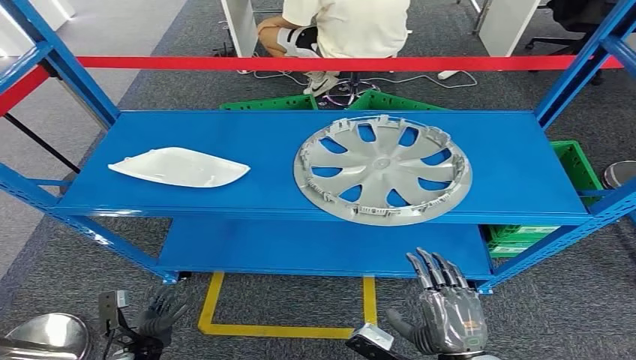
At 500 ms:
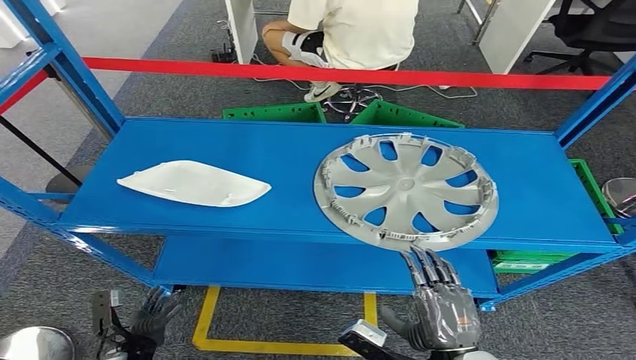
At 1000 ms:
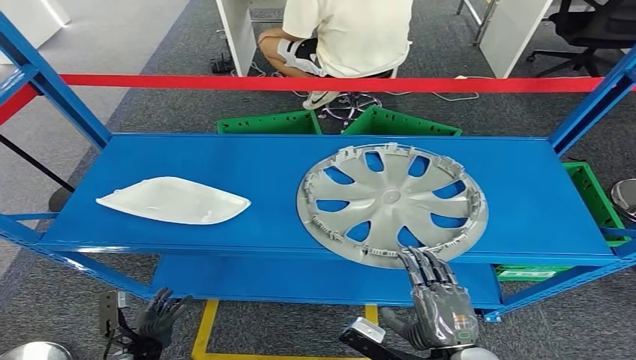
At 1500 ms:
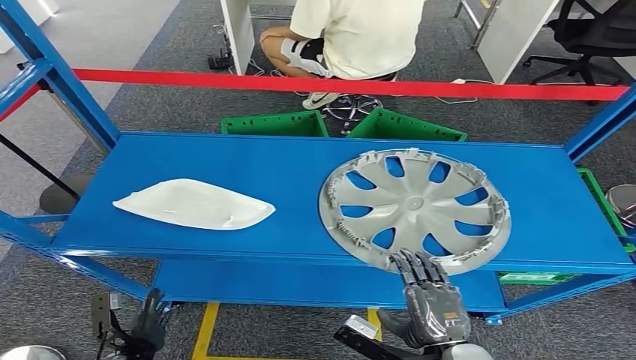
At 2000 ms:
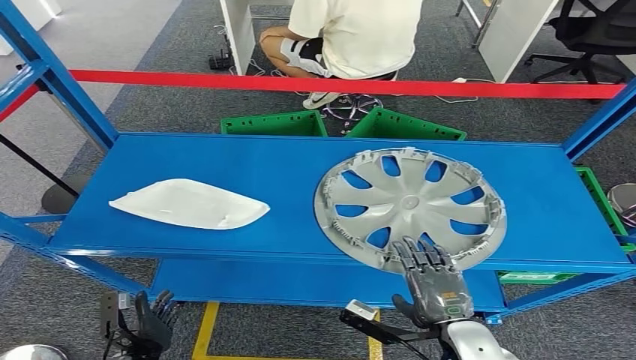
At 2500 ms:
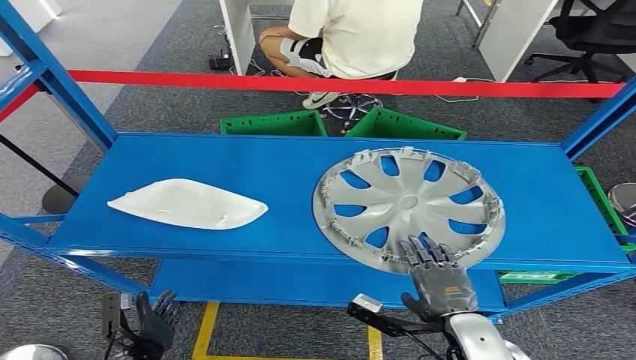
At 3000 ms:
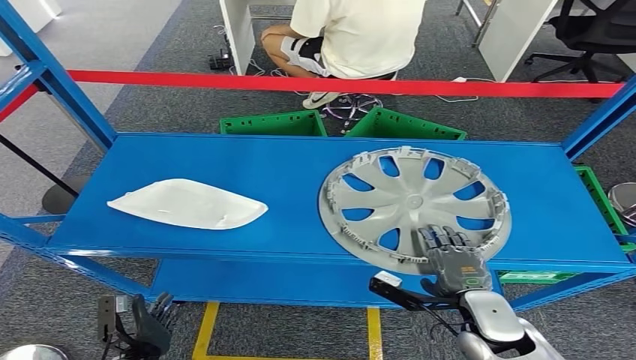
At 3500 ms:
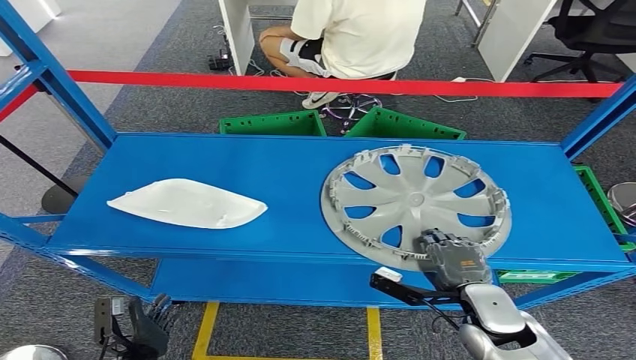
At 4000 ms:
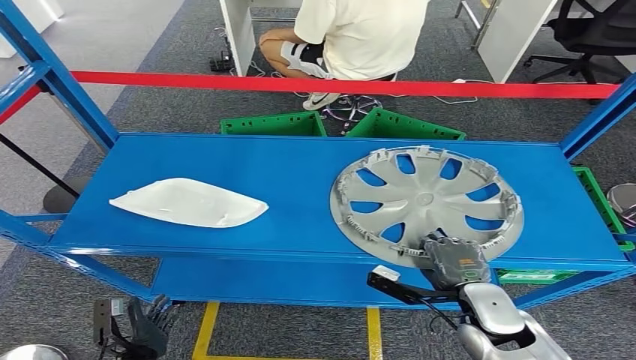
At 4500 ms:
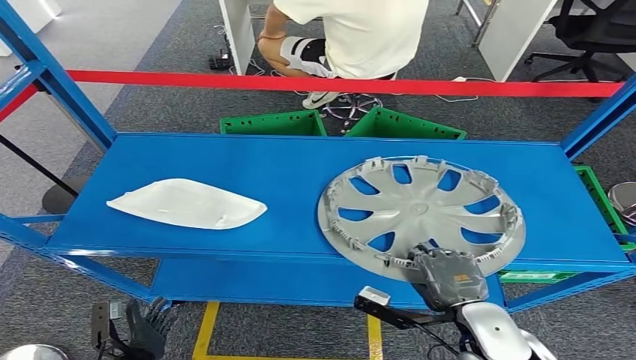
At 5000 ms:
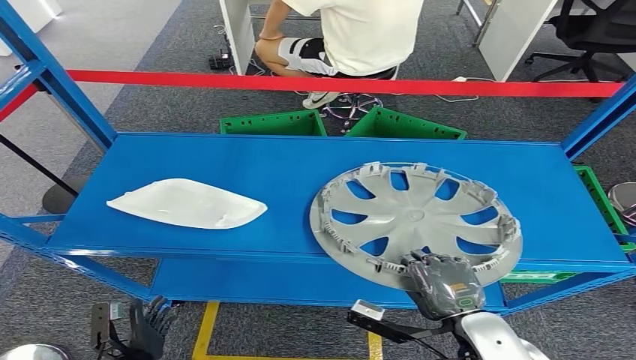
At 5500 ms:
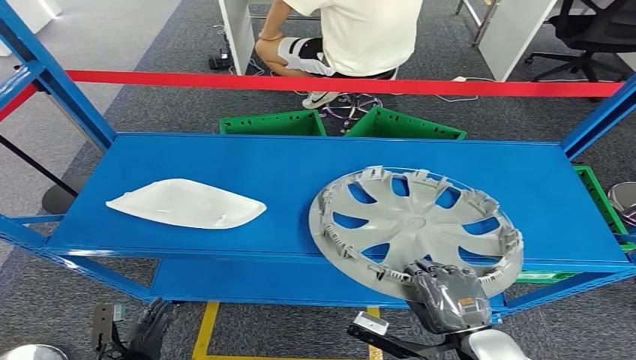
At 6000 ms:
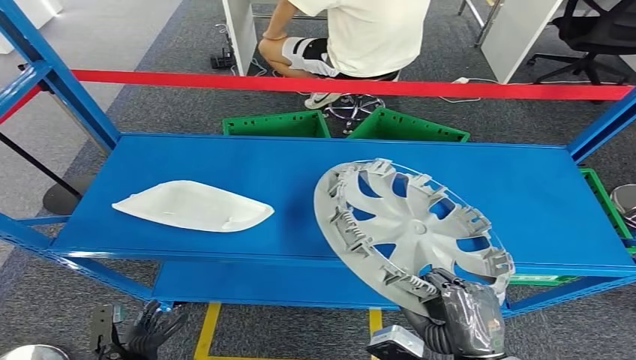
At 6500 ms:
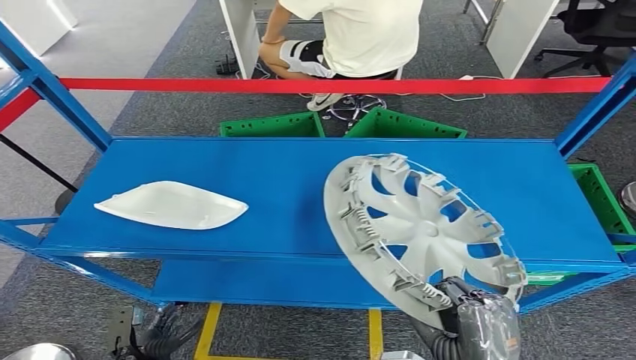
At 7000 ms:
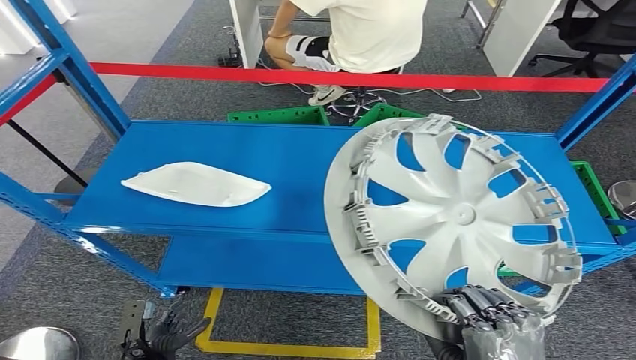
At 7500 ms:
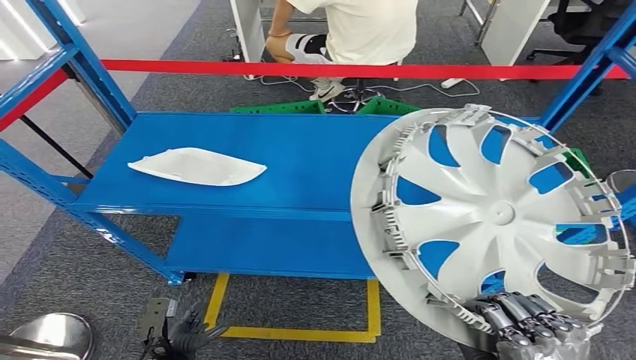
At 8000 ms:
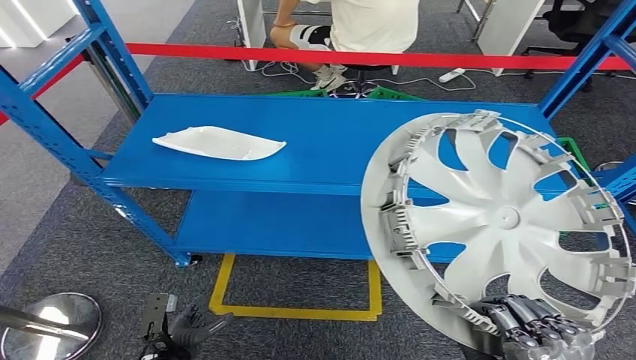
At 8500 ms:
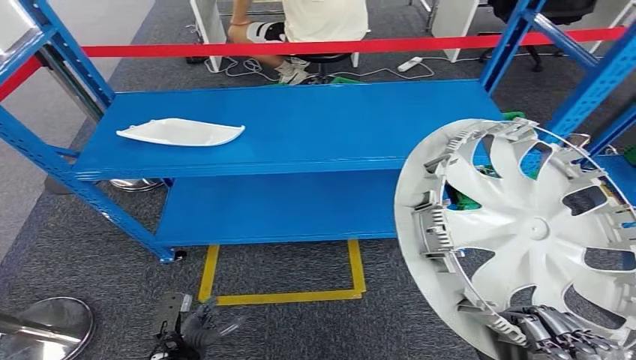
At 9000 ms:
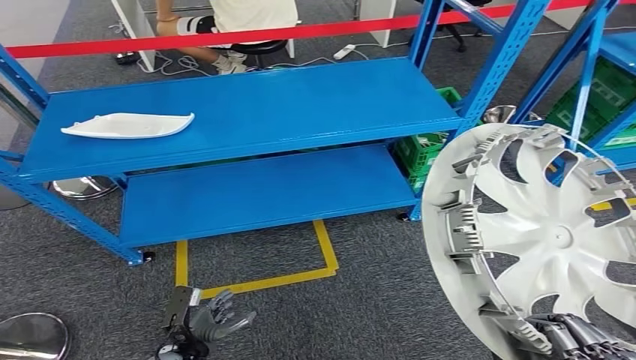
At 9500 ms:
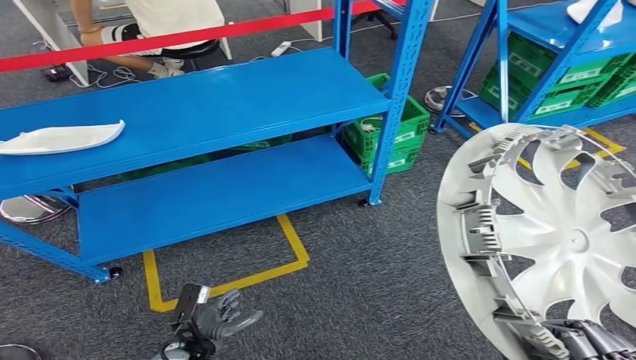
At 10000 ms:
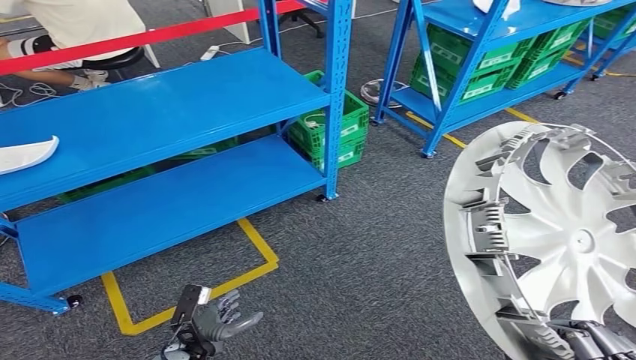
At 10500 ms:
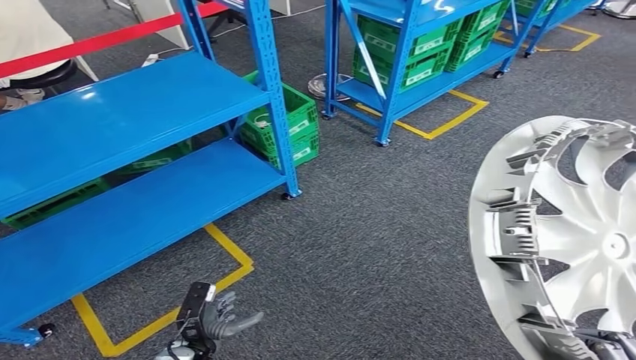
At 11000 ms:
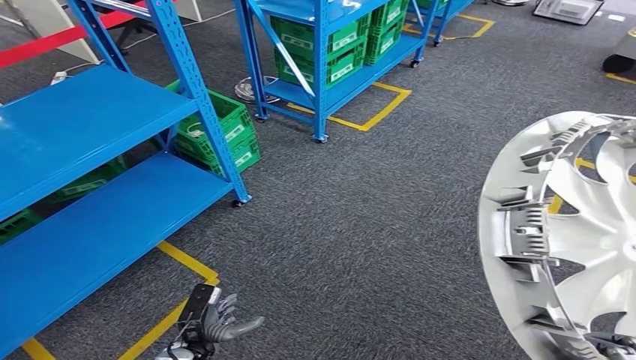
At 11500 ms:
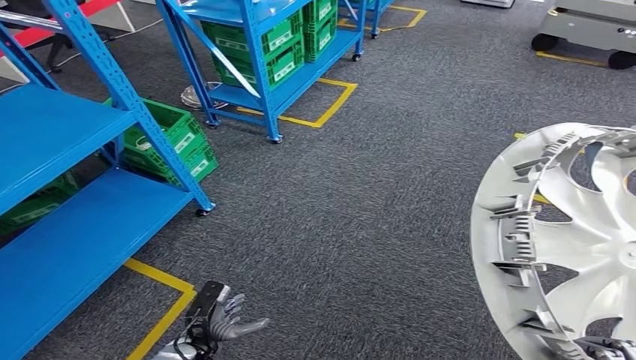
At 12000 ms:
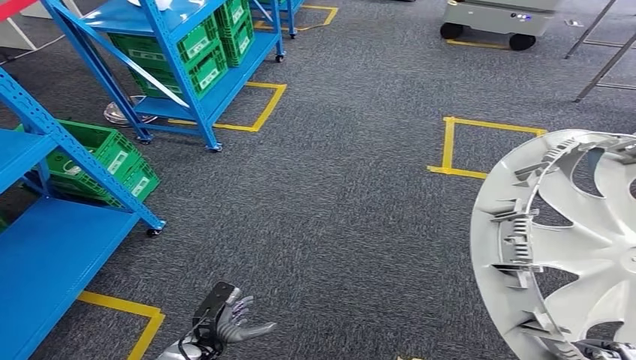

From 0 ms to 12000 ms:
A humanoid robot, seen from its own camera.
Step, from 0 ms to 7000 ms: Pick up the small component from the shelf.
From 2000 ms to 4000 ms: The right hand moves forward, about 5 cm.

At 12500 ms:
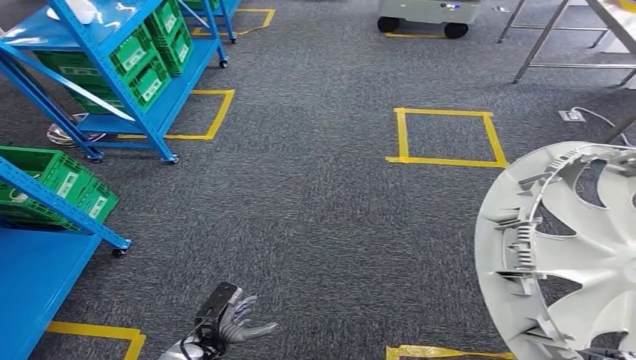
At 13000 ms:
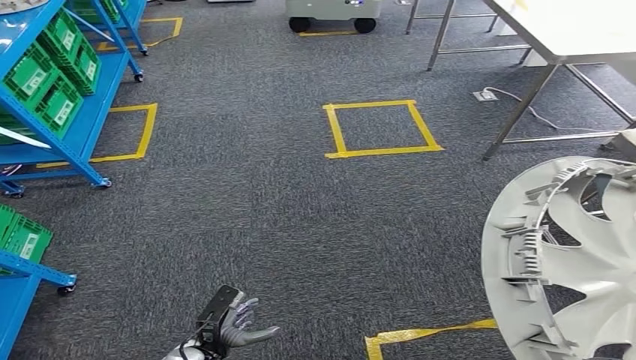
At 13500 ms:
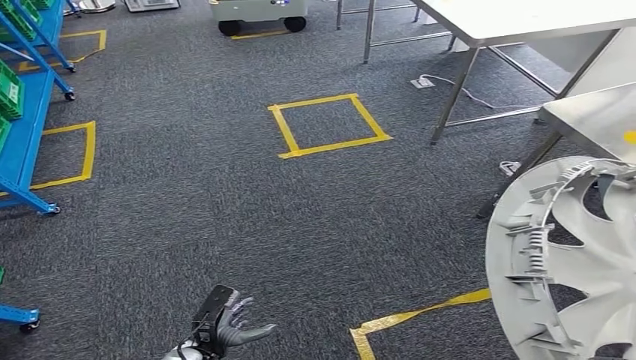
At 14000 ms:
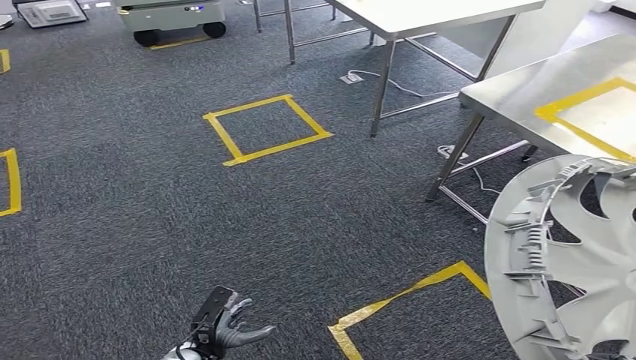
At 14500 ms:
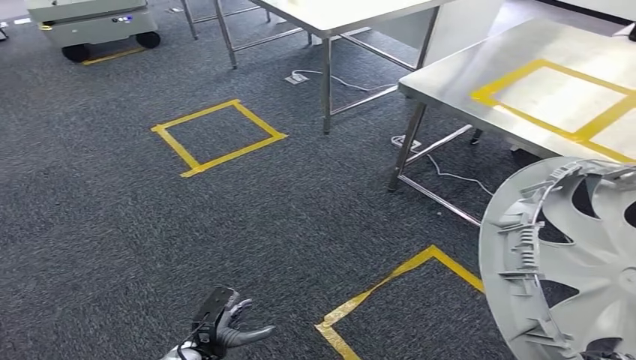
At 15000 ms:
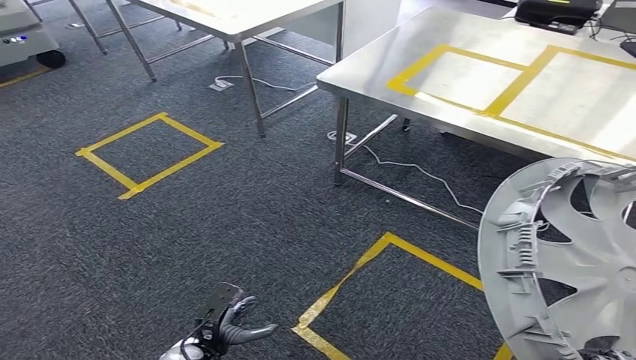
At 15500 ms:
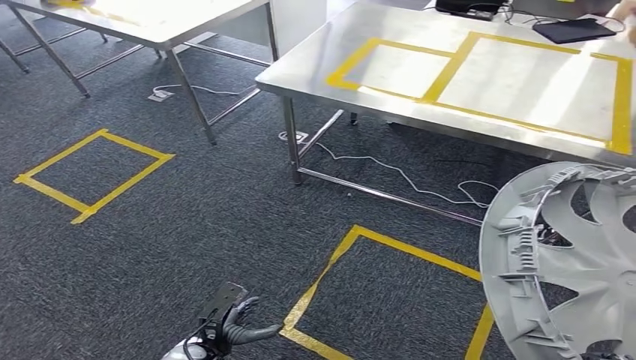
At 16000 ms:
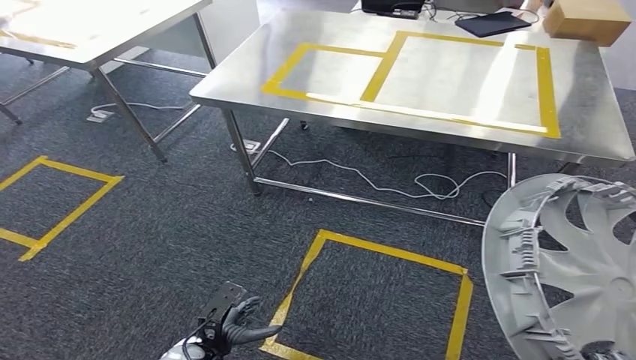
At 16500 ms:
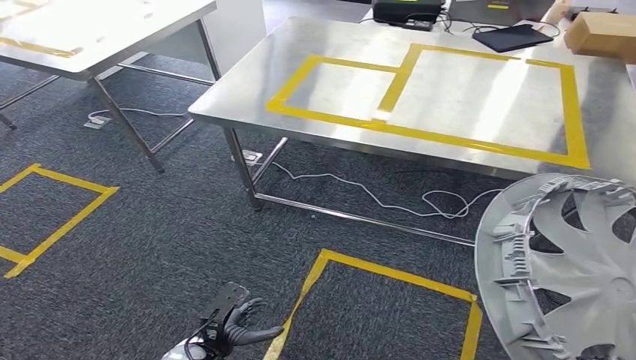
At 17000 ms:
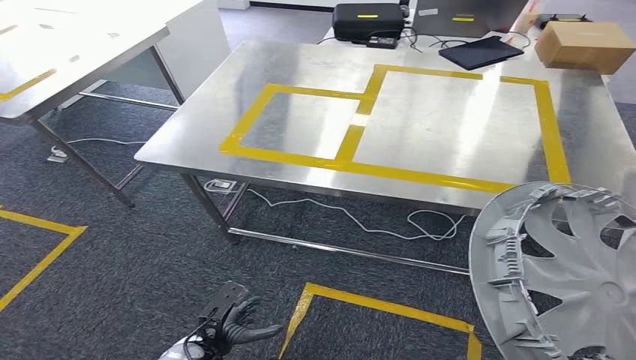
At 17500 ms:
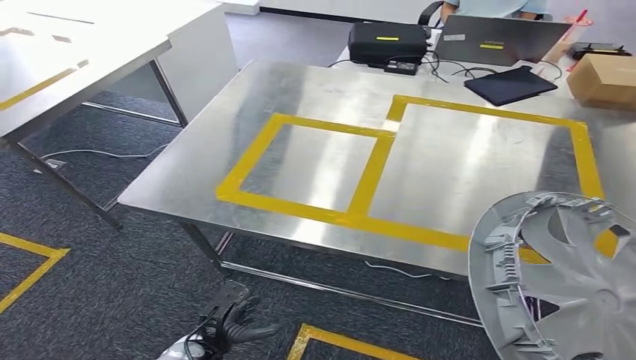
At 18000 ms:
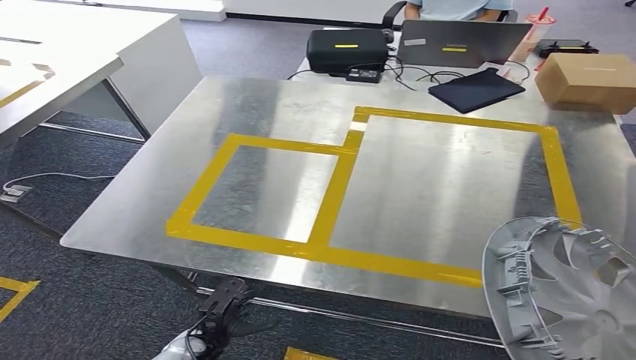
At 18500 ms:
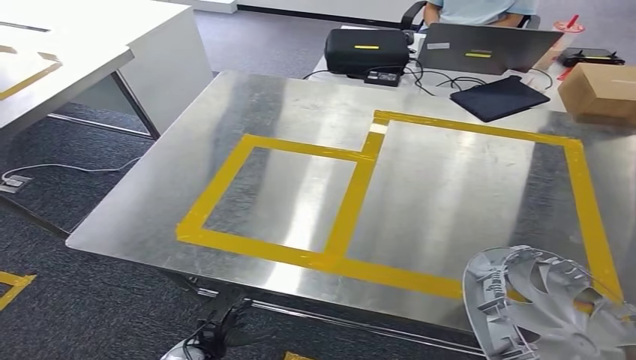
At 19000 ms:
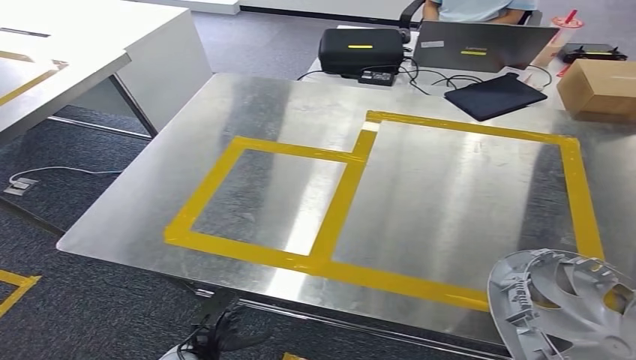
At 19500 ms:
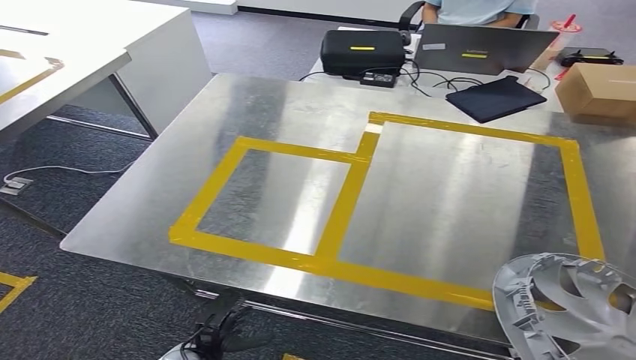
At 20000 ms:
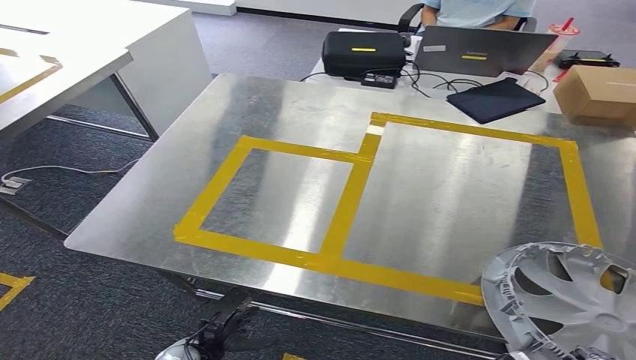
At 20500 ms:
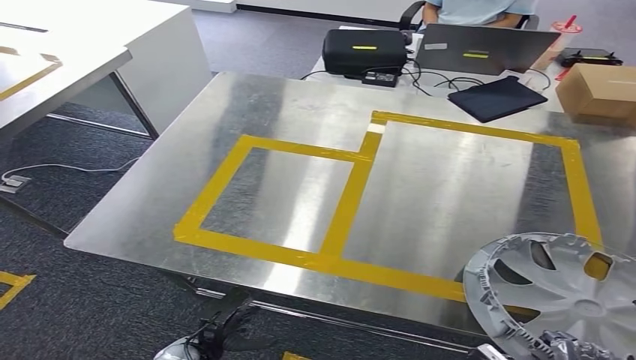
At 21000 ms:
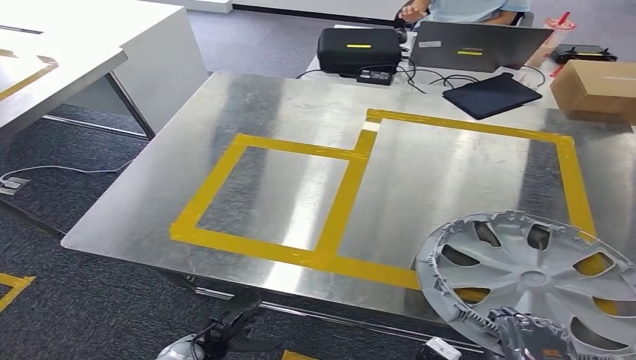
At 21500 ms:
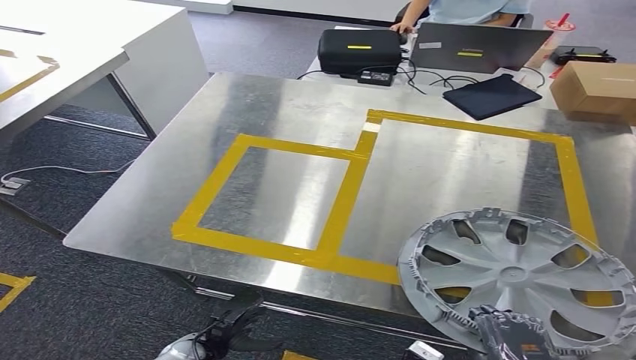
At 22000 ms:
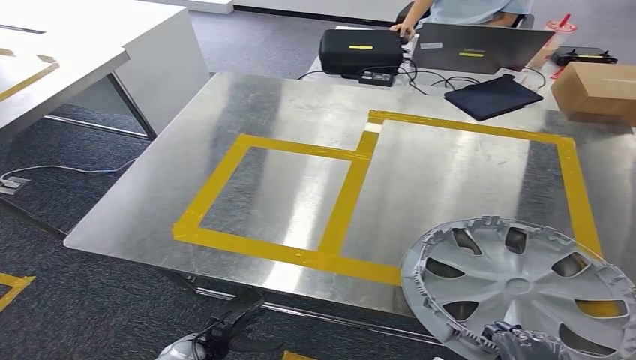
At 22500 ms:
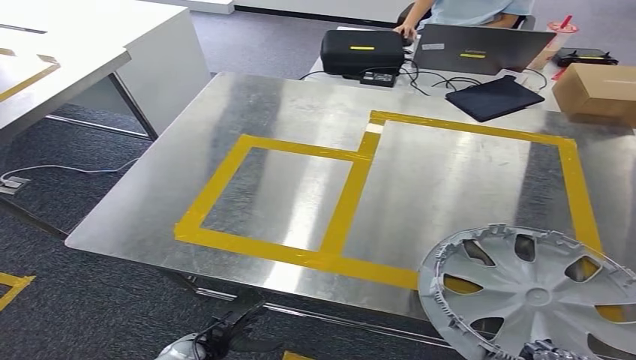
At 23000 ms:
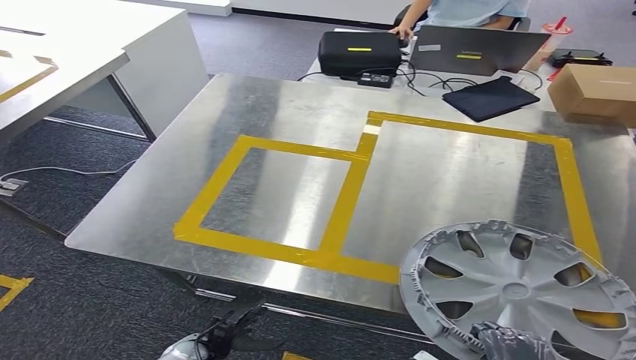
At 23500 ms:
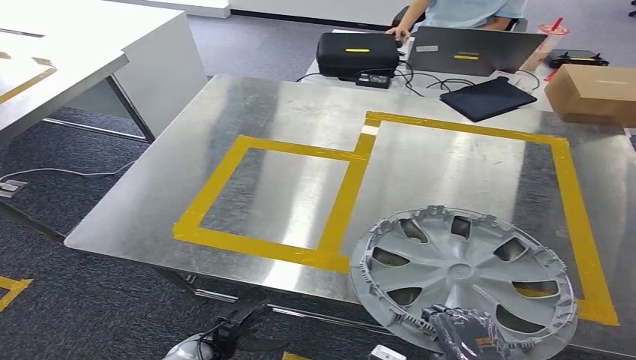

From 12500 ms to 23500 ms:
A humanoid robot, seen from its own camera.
Step, from 12500 ms to 19000 ms: Move the small component to the workbench.
From 20000 ms to 21500 ms: The right hand shifts approximately 5 cm forward.
